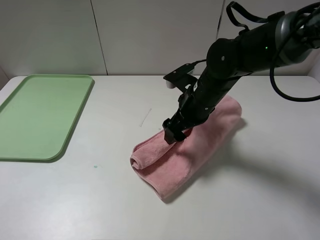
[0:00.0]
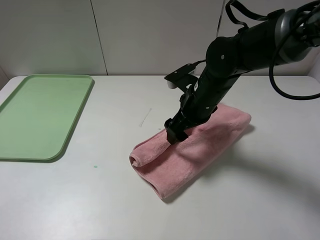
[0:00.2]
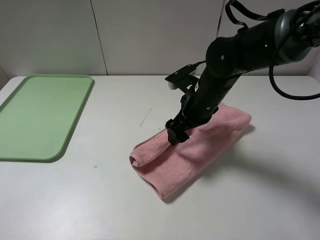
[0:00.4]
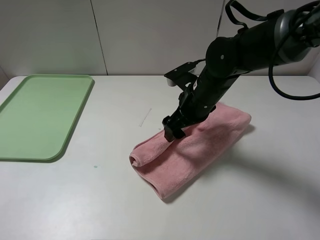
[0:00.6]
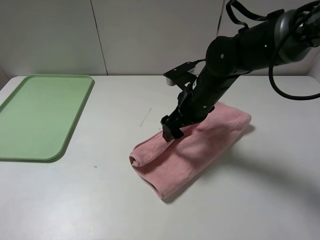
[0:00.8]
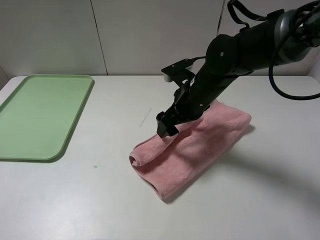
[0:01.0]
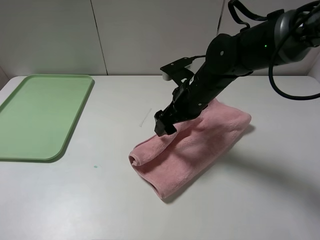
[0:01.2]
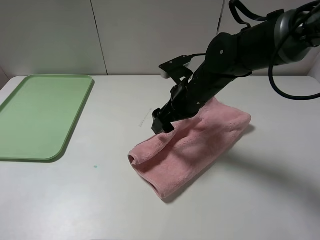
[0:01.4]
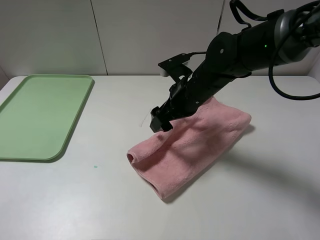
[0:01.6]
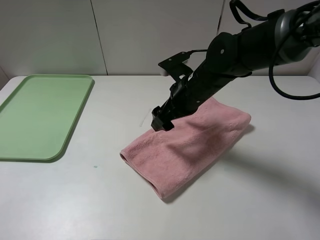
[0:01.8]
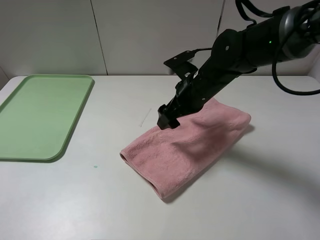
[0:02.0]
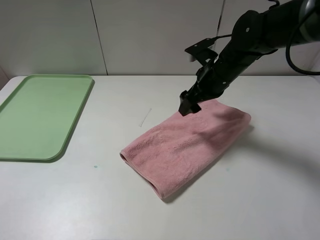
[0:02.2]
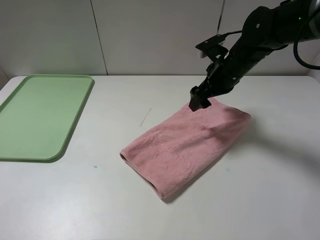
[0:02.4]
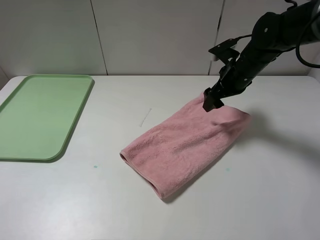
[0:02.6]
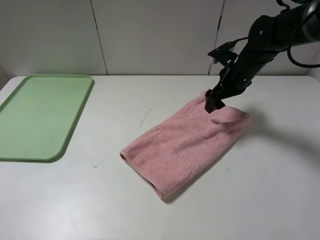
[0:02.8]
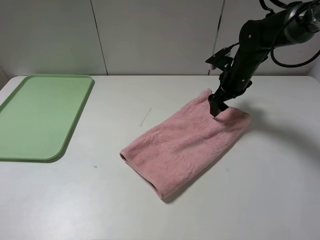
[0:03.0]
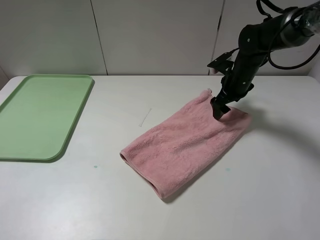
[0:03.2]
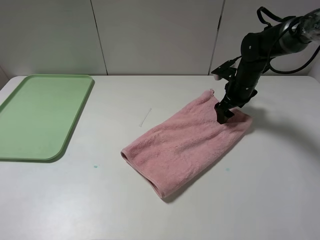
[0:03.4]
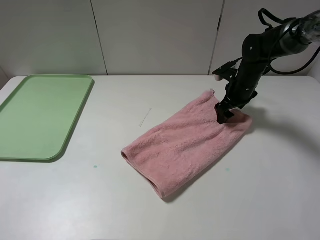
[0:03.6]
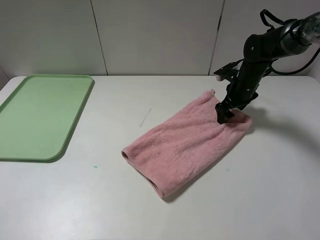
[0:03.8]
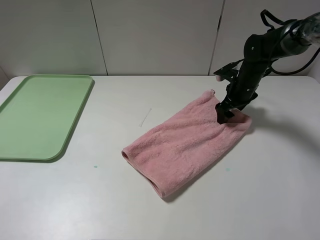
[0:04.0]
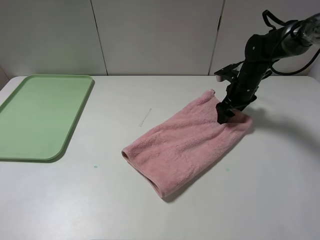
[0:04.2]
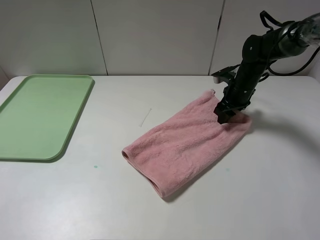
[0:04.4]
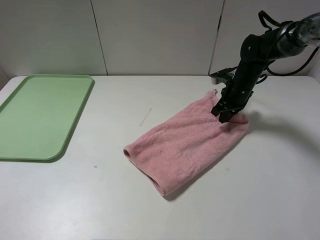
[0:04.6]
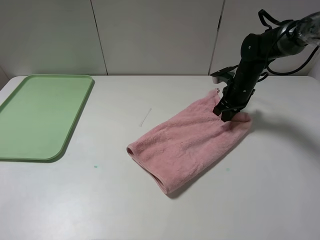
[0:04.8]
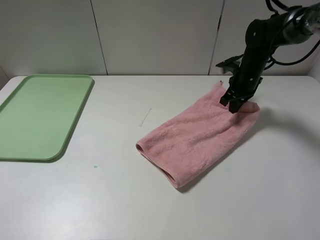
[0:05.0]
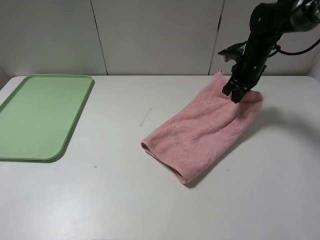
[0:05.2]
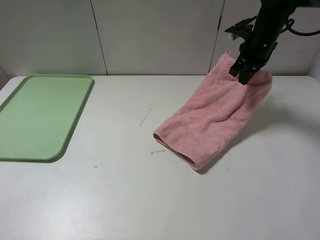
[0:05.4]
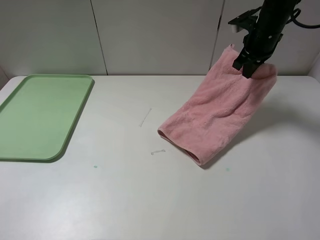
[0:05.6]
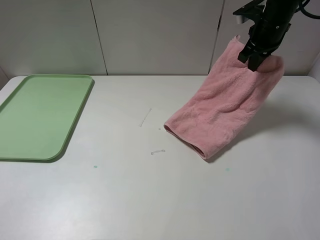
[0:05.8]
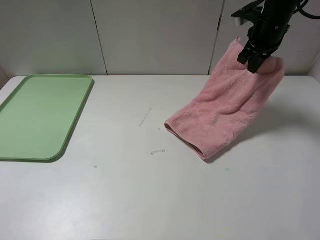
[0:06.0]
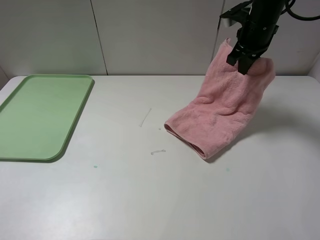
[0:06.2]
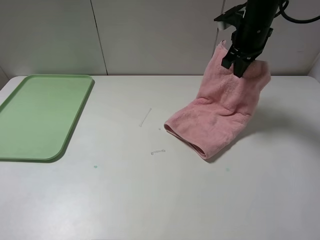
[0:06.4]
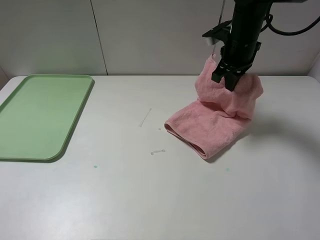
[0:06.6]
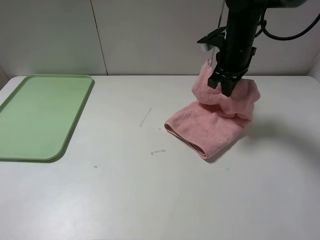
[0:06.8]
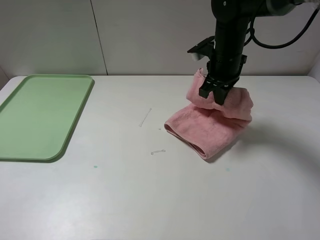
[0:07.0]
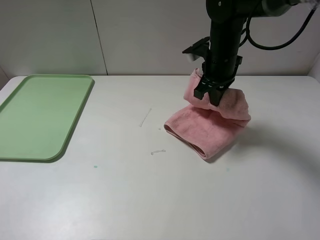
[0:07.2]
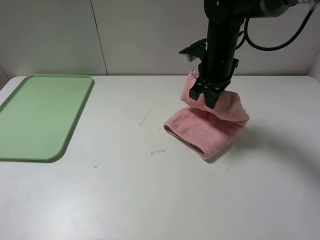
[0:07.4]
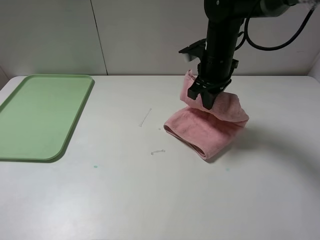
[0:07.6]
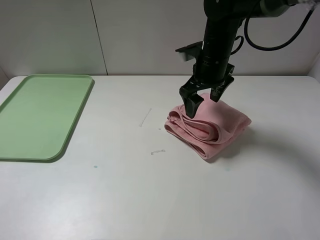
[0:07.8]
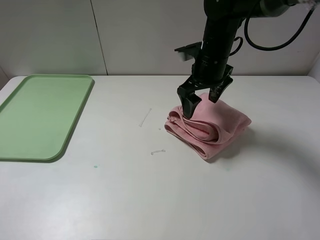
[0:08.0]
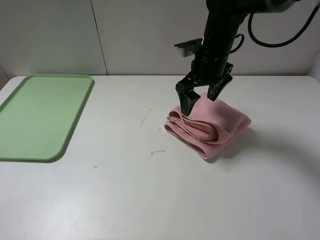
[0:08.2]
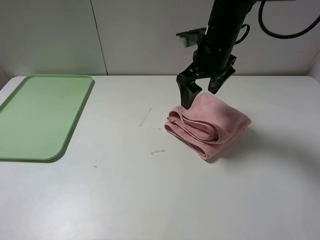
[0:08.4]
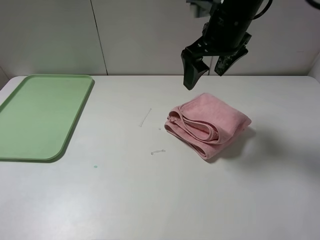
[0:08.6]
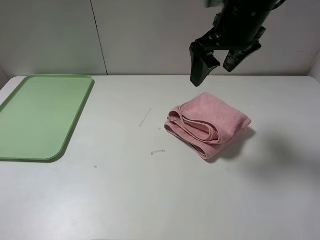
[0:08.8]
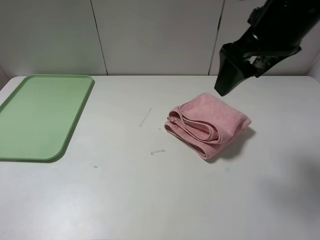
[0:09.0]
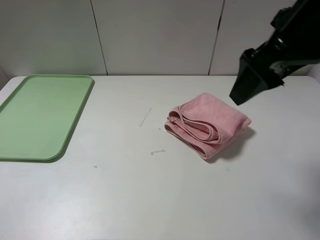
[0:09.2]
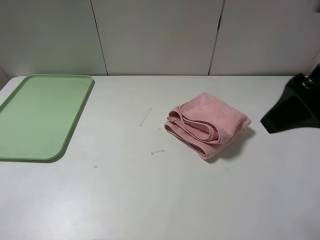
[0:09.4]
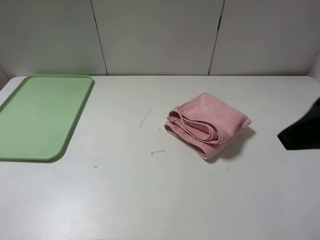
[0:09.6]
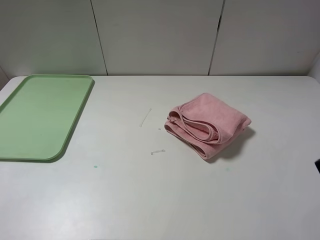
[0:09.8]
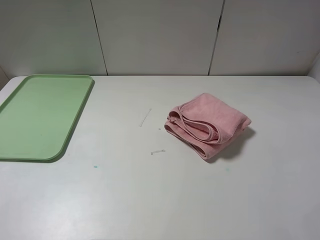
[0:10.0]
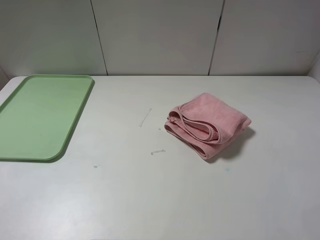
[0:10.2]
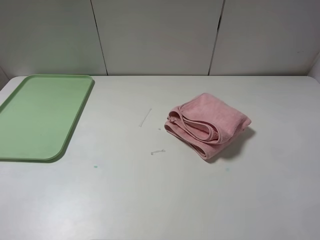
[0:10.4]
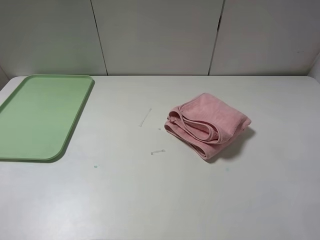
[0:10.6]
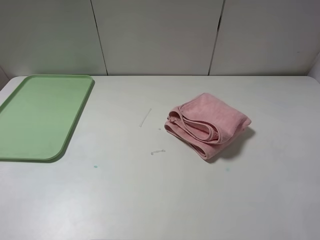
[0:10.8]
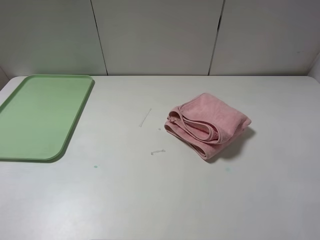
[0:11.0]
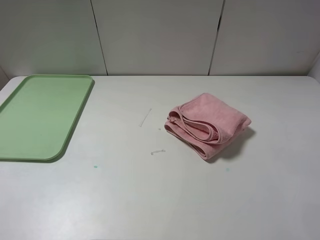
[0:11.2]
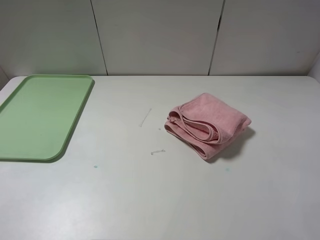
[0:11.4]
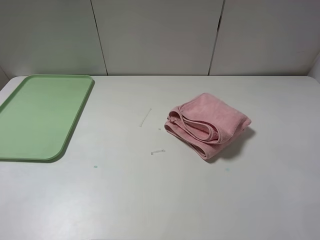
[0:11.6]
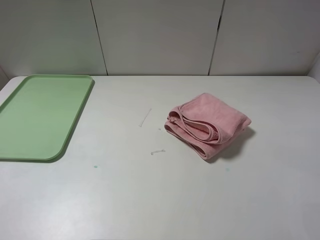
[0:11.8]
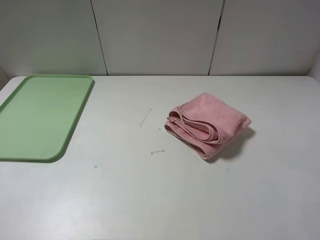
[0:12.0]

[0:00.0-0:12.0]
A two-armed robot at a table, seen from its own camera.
Step, 0:00.0 to 0:02.0: Fold the pink towel upwards.
Step, 0:02.2 to 0:08.0: Fold the pink towel from right to left with right gripper.
0:00.0 to 0:01.6: There are only small adjustments of the grippers.
0:01.6 to 0:03.0: The right gripper goes approximately 15 cm to the right and forward.
0:03.0 to 0:04.4: The right gripper ends up about 5 cm from where it was, and closes up.
0:04.4 to 0:06.0: The right gripper goes approximately 15 cm upward.
0:06.0 to 0:07.6: The right gripper travels to the left and backward by some 15 cm, and opens.
0:07.6 to 0:09.0: The right gripper goes about 20 cm upward and backward, and opens up.
0:09.0 to 0:10.4: The right gripper goes some 30 cm backward and to the right.

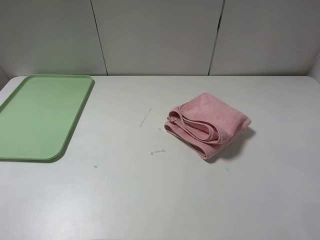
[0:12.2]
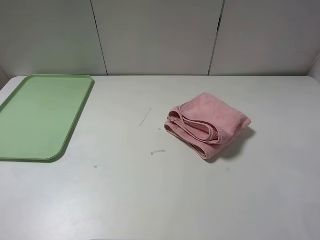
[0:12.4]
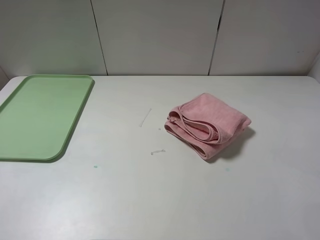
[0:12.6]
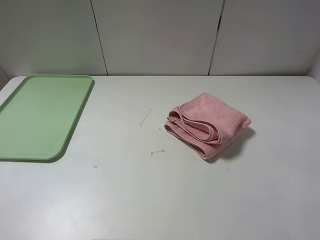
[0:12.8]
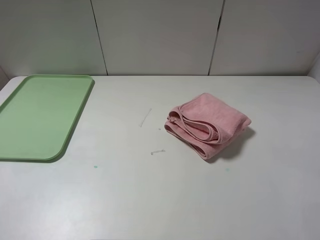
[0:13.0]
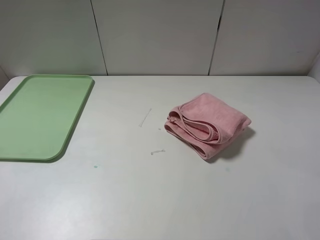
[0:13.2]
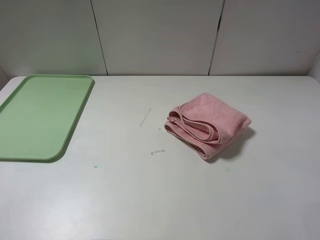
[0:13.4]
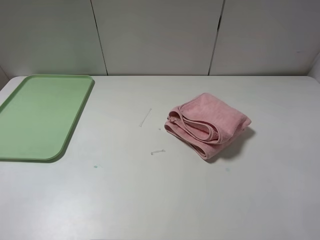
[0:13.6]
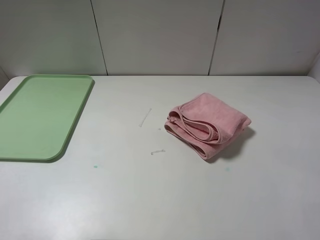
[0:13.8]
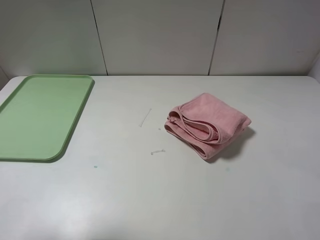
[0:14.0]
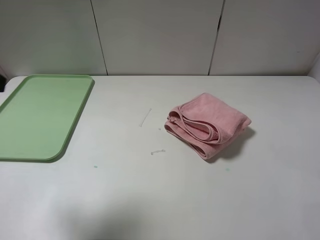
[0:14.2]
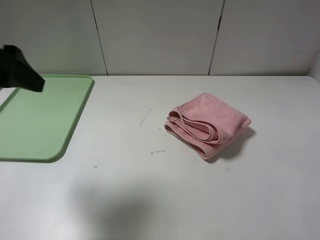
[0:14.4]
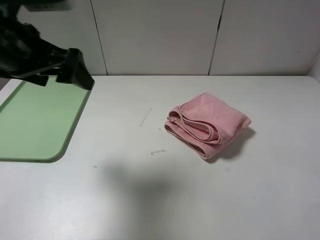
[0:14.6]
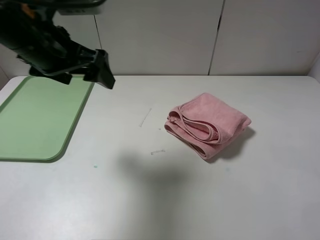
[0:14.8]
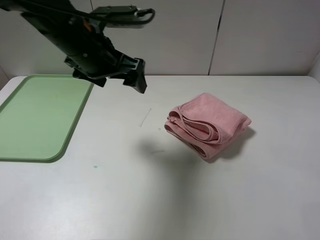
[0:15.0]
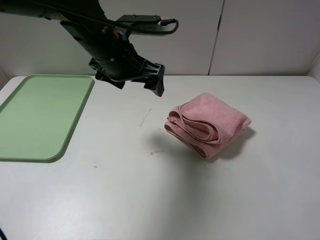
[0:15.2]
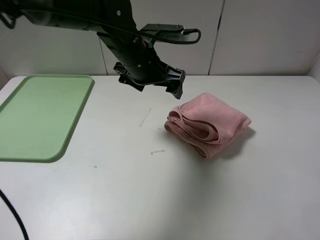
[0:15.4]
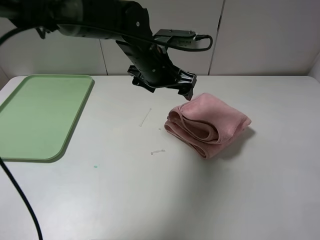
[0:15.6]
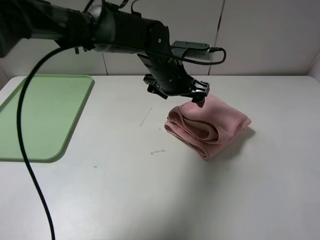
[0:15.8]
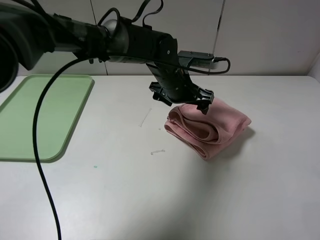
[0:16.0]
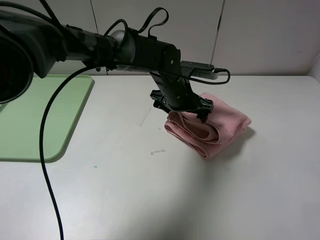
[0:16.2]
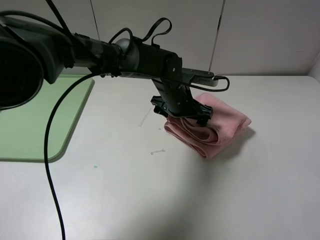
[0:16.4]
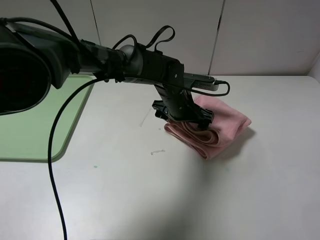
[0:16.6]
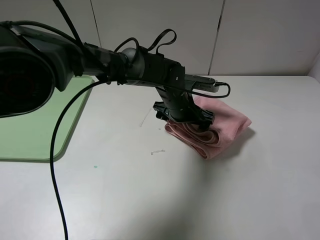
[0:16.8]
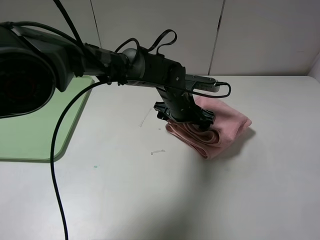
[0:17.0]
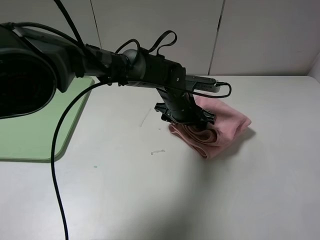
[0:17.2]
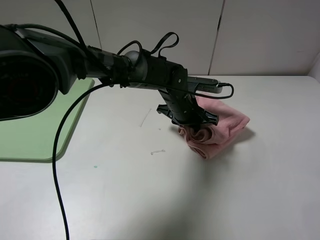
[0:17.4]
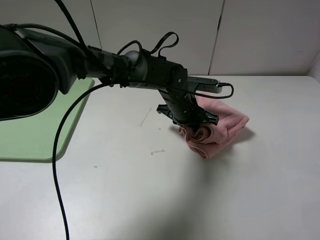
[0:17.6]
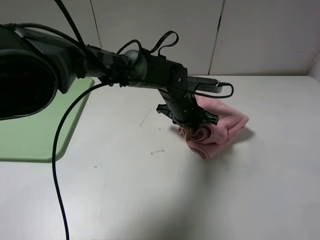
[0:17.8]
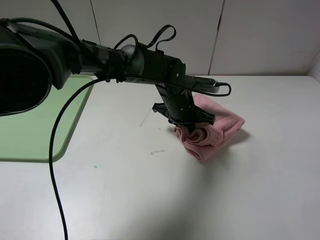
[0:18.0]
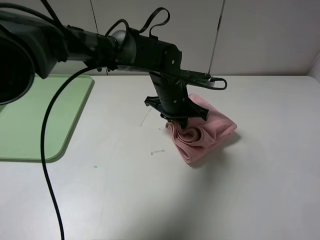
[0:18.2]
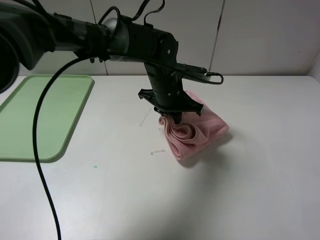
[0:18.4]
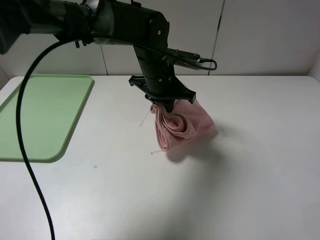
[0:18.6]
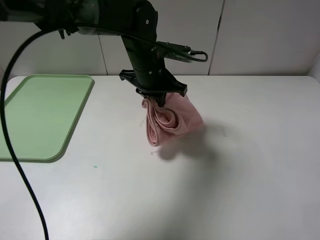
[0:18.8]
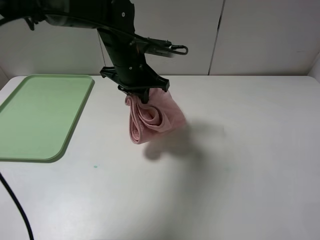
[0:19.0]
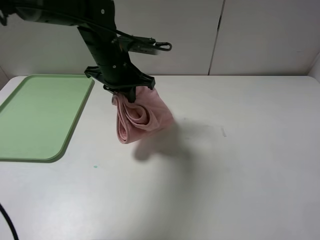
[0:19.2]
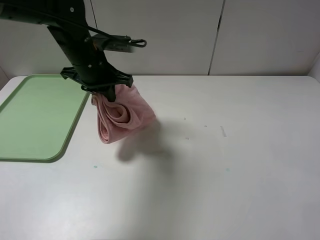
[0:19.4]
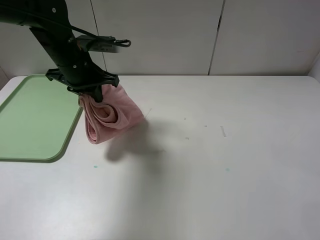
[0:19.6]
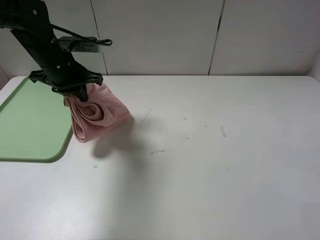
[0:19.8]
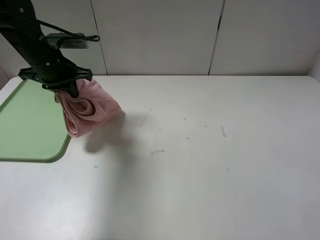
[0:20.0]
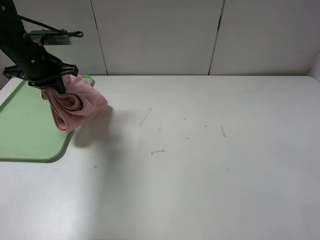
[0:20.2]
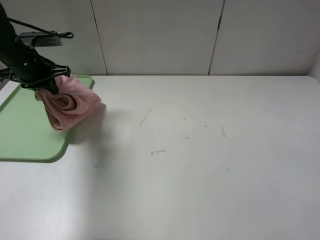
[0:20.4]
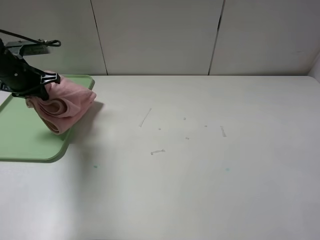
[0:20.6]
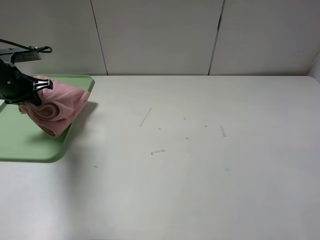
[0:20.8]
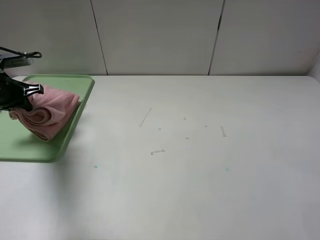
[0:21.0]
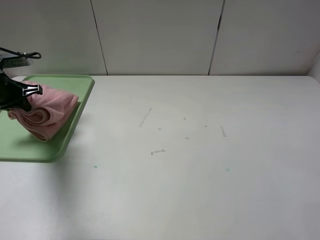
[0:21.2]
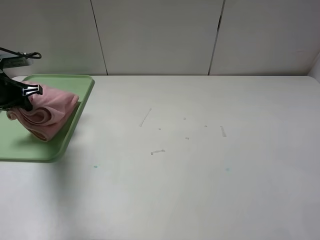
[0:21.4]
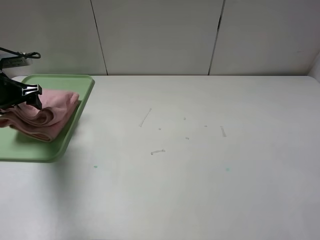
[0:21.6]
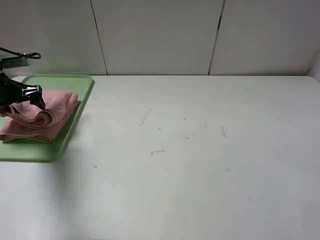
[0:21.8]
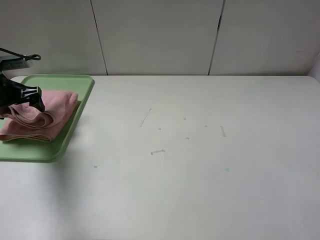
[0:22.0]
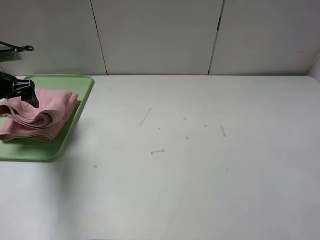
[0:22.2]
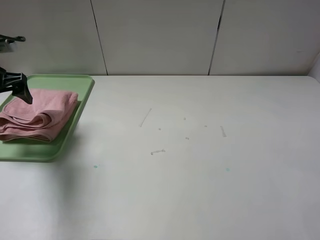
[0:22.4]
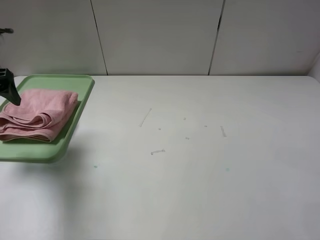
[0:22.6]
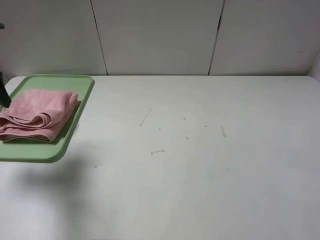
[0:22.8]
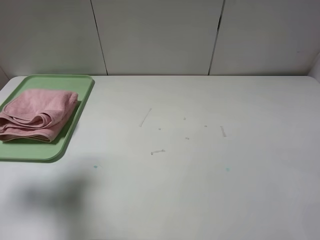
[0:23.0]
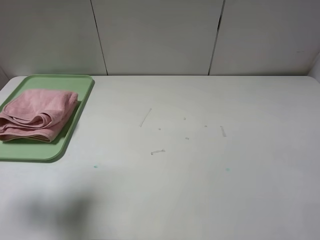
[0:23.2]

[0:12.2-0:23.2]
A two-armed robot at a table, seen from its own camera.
Step, 0:12.2 to 0:22.2: Place the folded pink towel on the tray with the left gripper.
0:13.8 to 0:15.4: The left gripper heads forward and to the right, covering approximately 40 cm.
0:15.4 to 0:17.0: The left gripper shifts approximately 15 cm downward and to the right.
0:17.0 to 0:18.4: The left gripper shifts about 5 cm upward, and closes its fingers.
0:18.4 to 0:20.0: The left gripper shifts some 25 cm to the left.
0:20.0 to 0:21.6: The left gripper goes about 15 cm to the left, and opens its fingers.
0:21.6 to 0:23.2: The left gripper travels upward and backward by about 25 cm.
